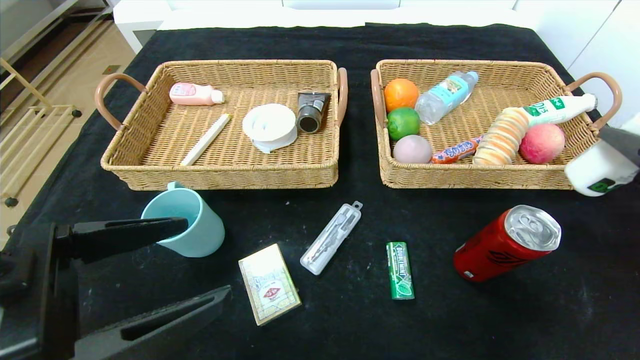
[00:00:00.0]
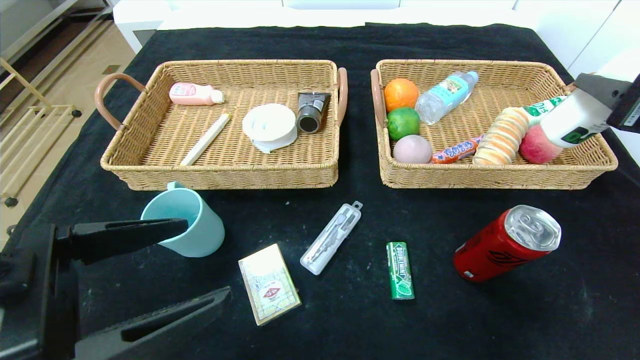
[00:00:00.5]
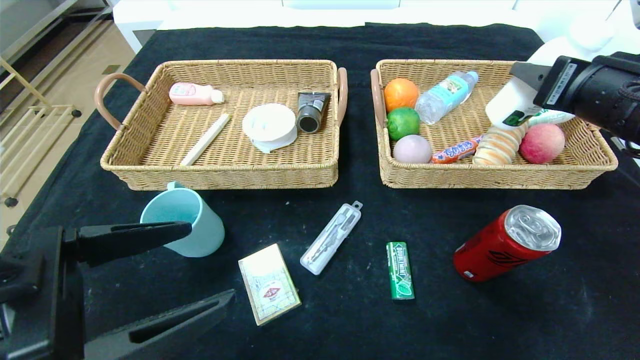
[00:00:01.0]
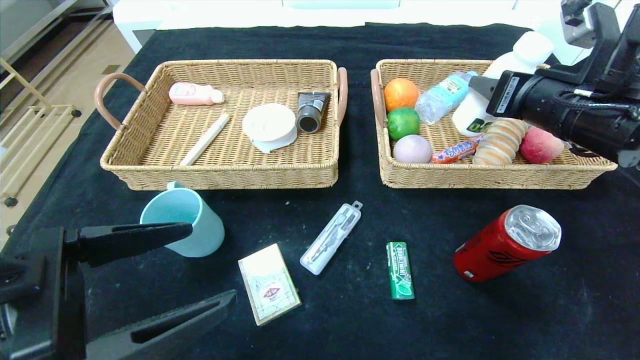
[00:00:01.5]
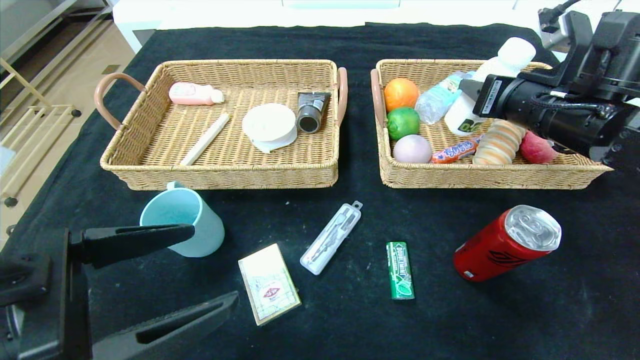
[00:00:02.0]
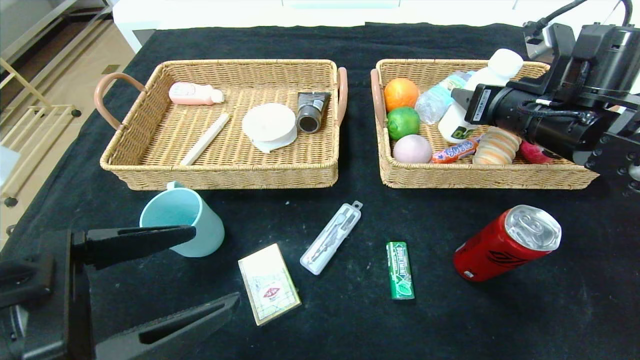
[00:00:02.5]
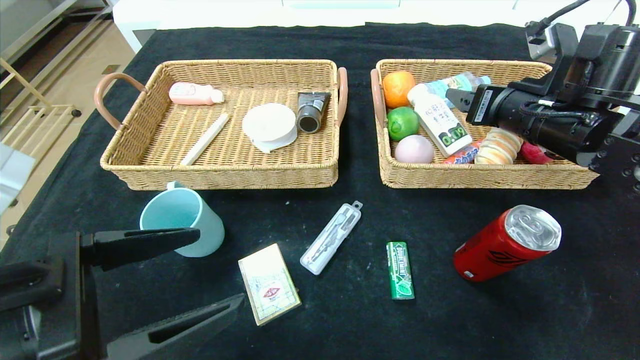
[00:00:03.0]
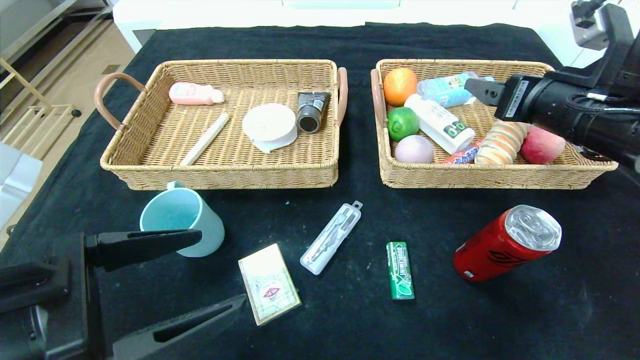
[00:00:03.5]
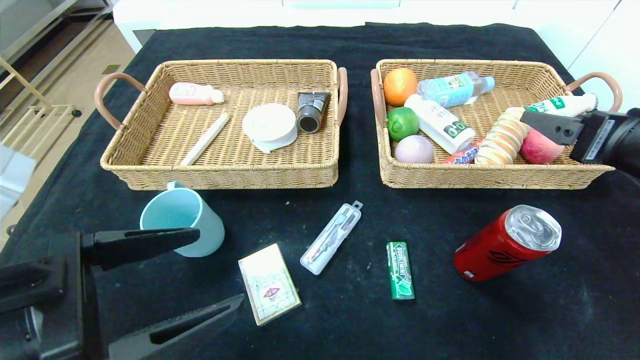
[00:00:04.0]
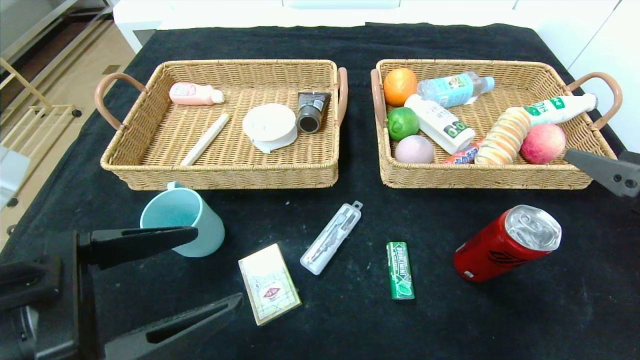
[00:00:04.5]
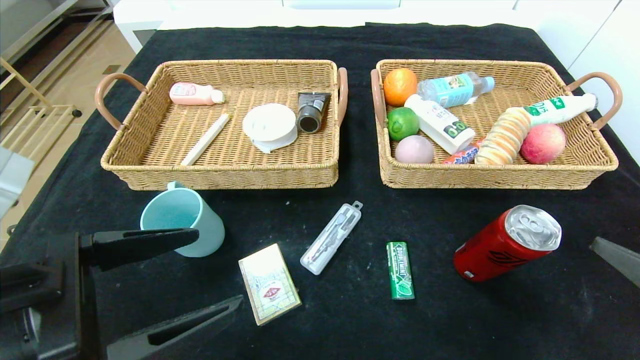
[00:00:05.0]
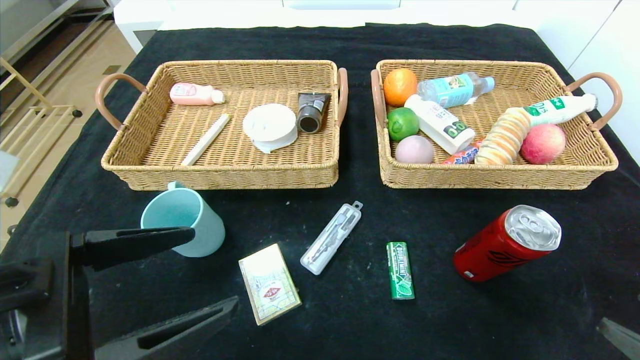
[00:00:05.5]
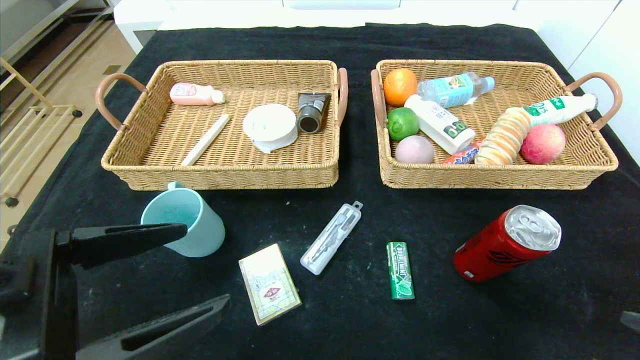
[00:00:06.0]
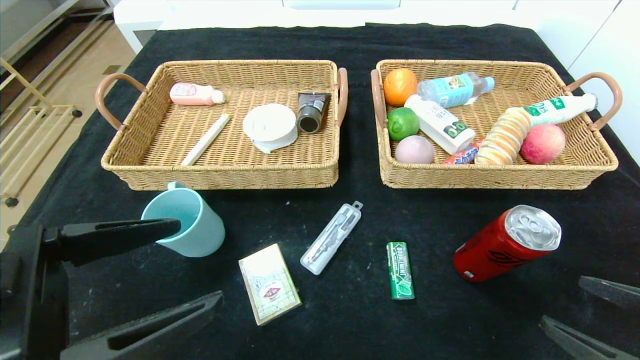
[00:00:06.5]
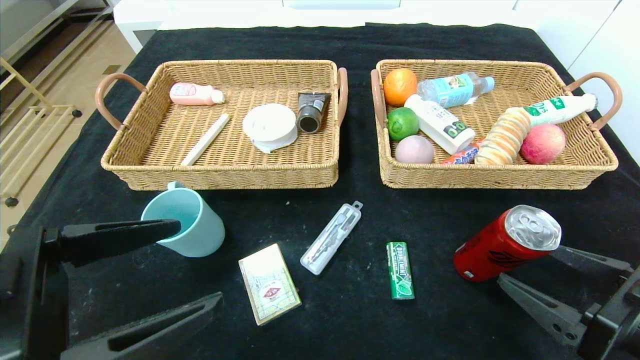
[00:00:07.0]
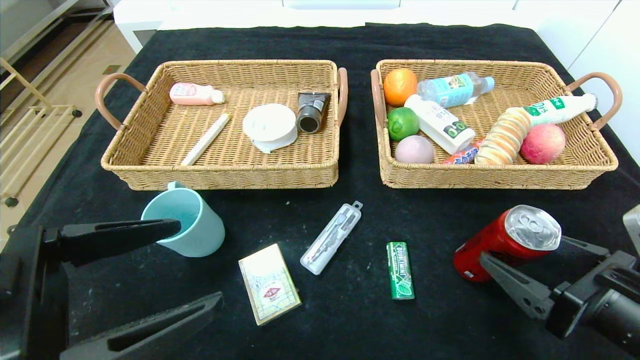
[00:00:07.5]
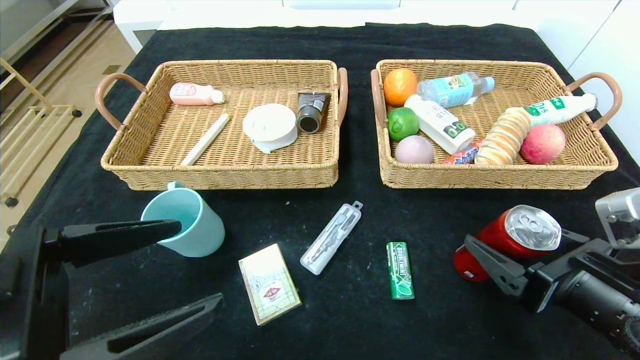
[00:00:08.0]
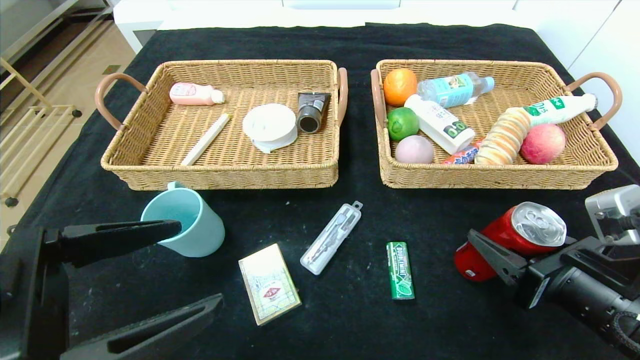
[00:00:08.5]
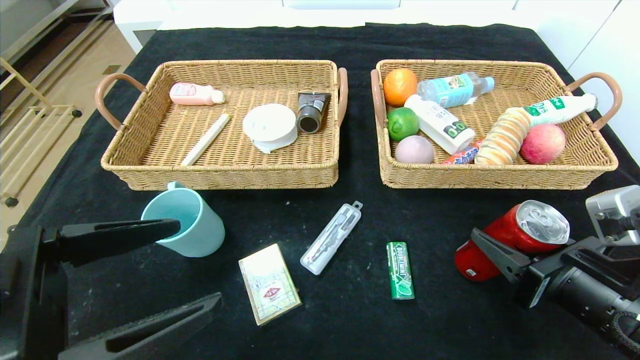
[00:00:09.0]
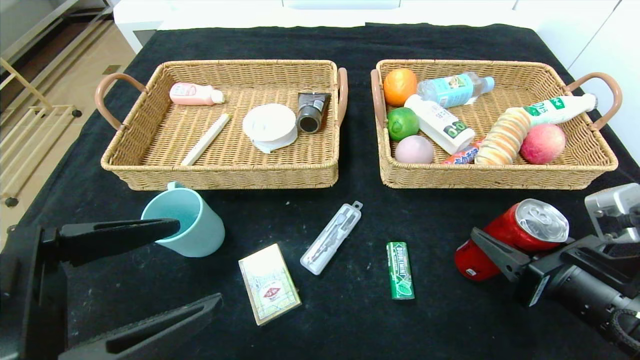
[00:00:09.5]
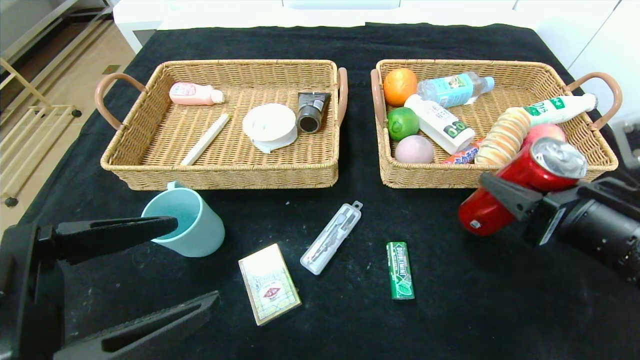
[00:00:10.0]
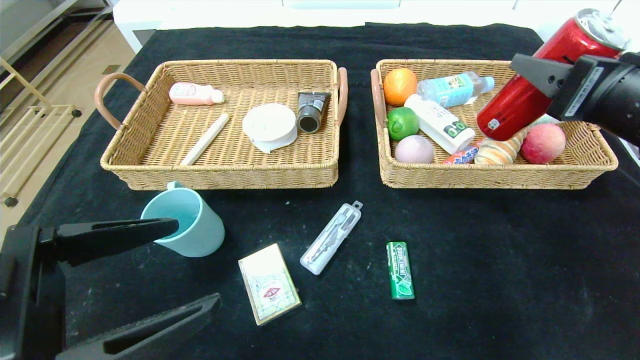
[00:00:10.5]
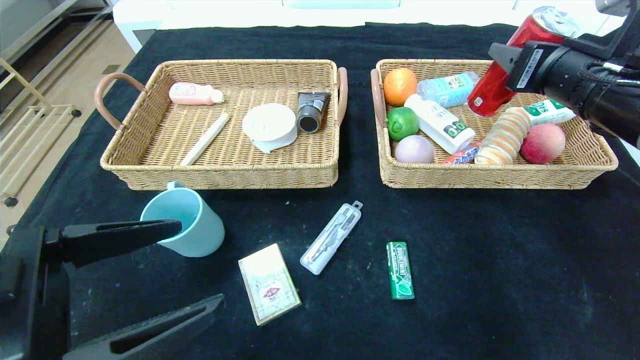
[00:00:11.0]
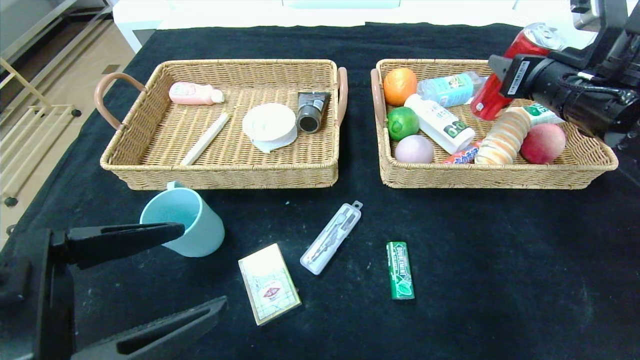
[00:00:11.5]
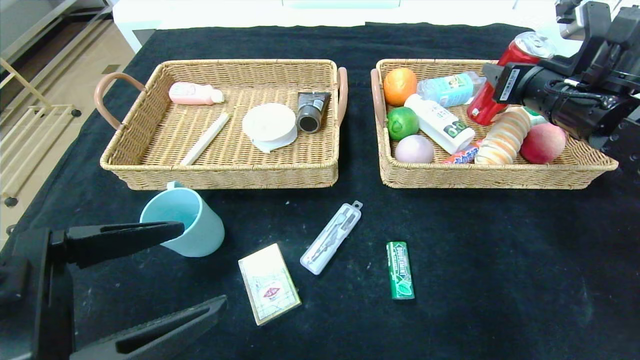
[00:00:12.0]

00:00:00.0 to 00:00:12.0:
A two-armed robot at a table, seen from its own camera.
Step, 00:00:00.0 to 00:00:04.5: Grasp the milk and put it in the right basket.
00:00:00.0 to 00:00:02.0: The right gripper heads forward and to the left, covering roughly 15 cm.
00:00:02.0 to 00:00:04.0: The right gripper is displaced backward and to the right by about 10 cm, and opens its fingers.
00:00:04.0 to 00:00:06.0: The right gripper is displaced backward and downward by about 20 cm.
00:00:06.0 to 00:00:08.0: The right gripper goes approximately 15 cm forward and to the left.
00:00:08.0 to 00:00:10.0: The right gripper is displaced upward by about 5 cm, and closes.
00:00:10.0 to 00:00:12.0: The right gripper shifts approximately 20 cm forward and upward.

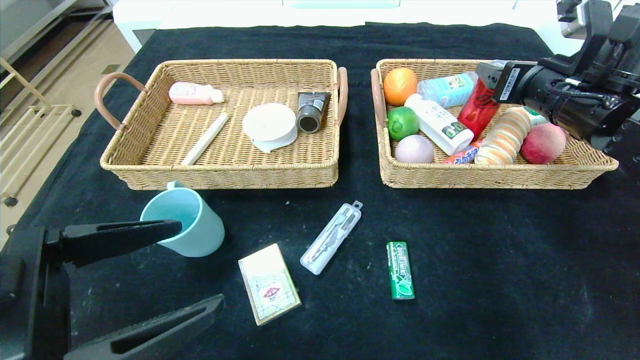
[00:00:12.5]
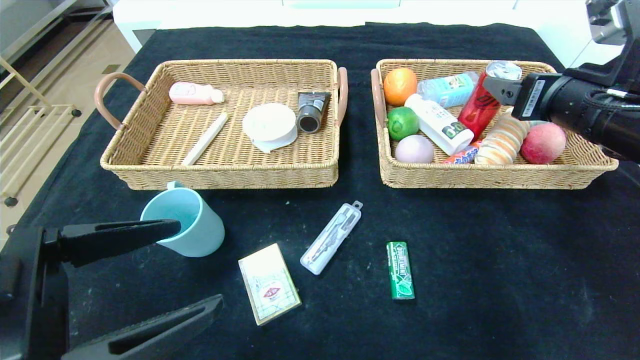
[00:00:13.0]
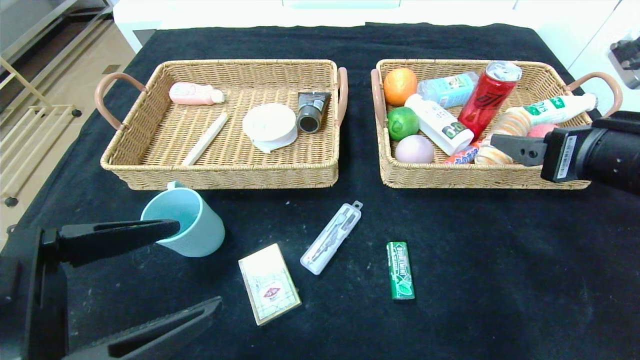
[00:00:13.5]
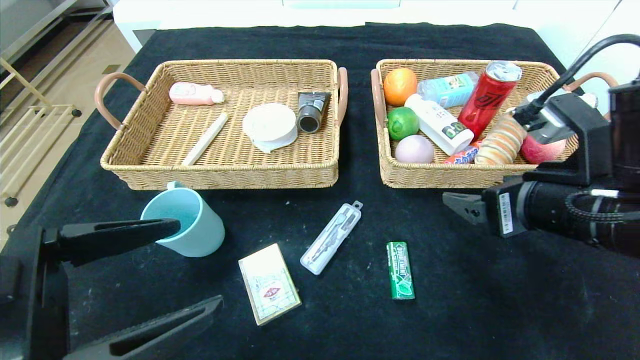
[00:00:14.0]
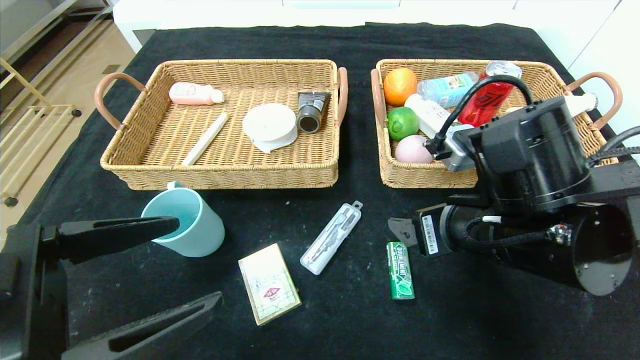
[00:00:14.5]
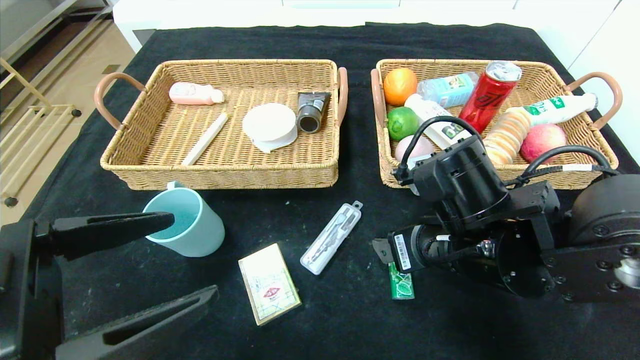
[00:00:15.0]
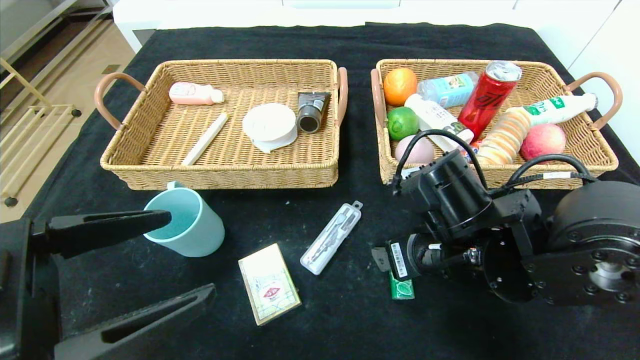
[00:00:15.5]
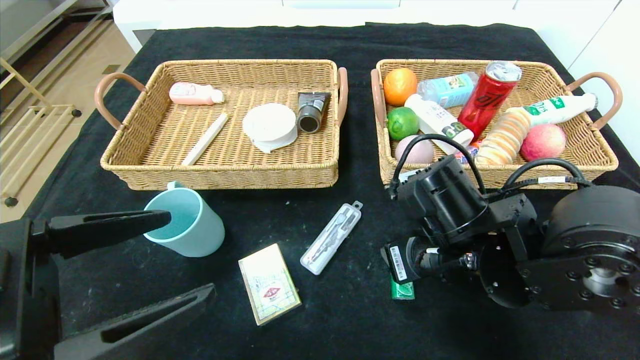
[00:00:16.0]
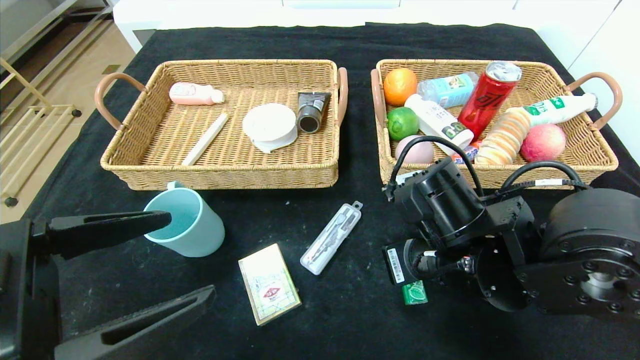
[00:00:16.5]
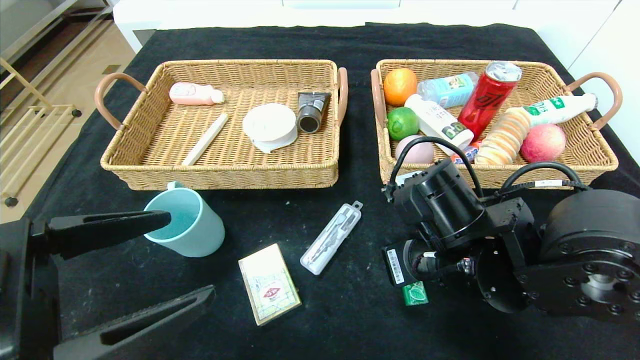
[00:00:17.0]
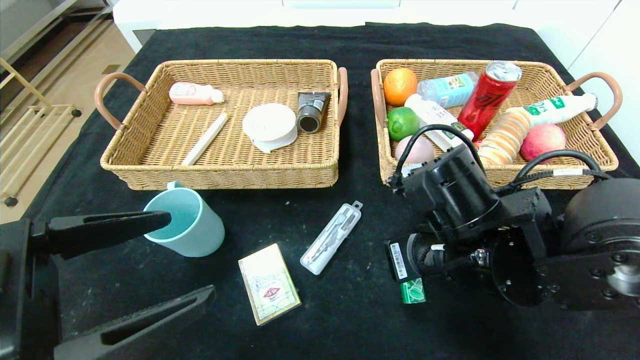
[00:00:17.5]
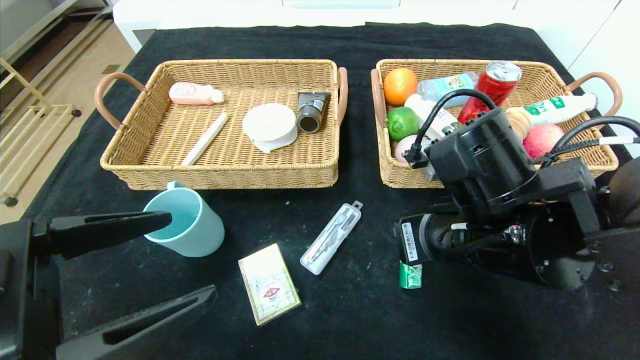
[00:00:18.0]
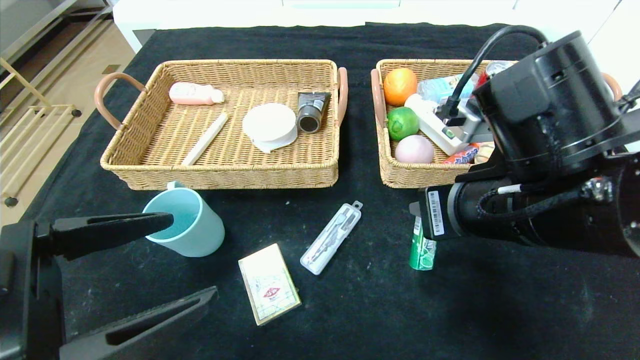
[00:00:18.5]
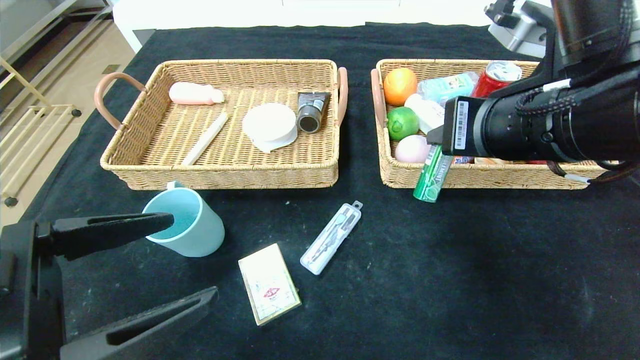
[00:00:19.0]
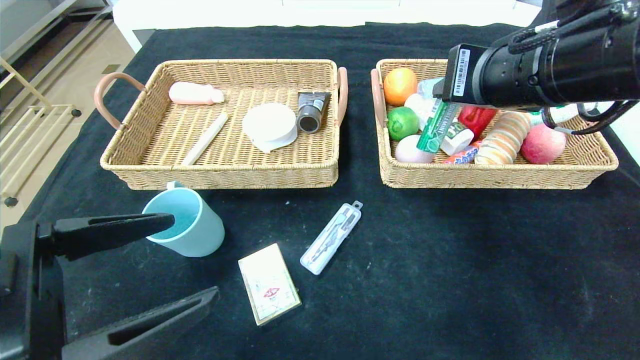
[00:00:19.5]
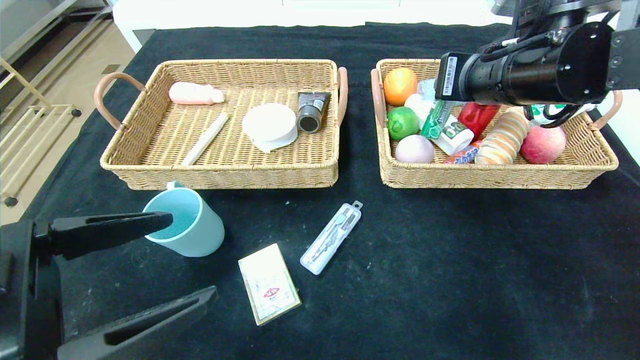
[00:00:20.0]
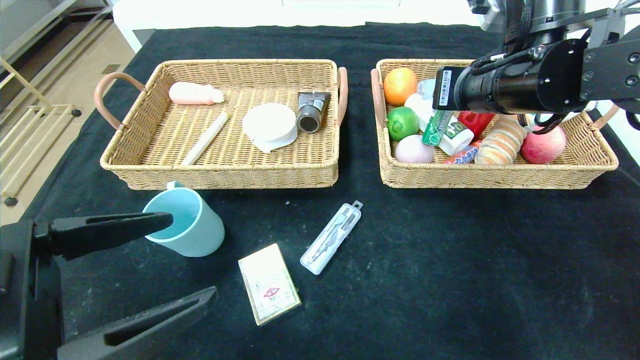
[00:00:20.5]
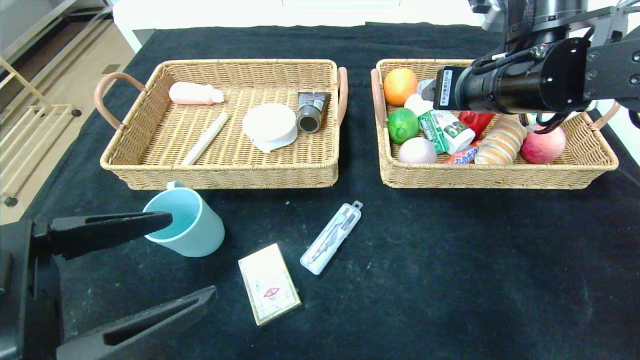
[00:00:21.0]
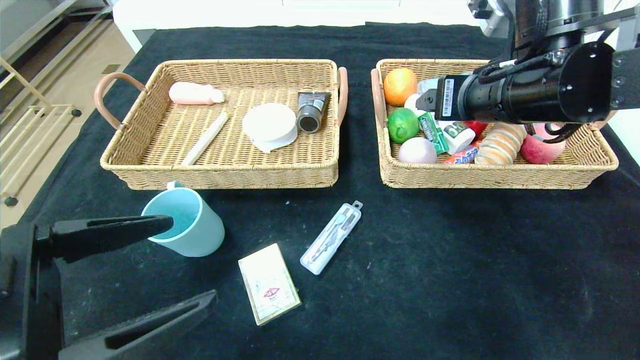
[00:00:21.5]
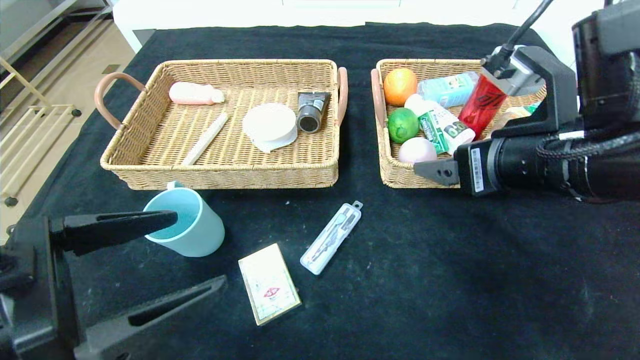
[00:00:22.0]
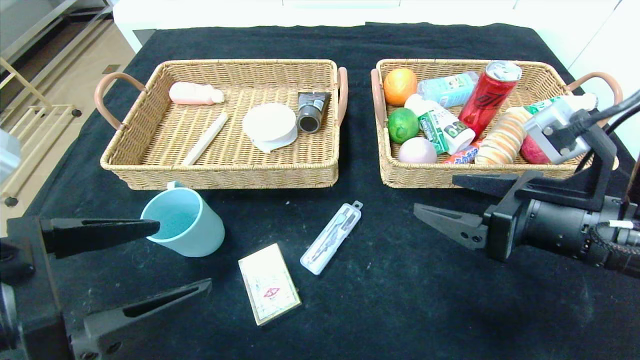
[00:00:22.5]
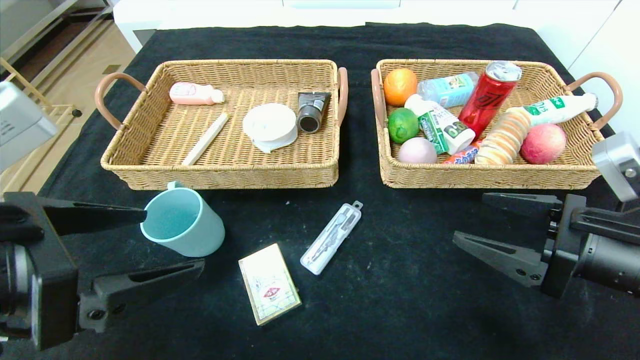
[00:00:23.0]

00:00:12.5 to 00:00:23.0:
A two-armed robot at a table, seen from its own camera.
Step, 00:00:13.0 to 00:00:21.0: Grasp the green chewing gum and put it in the right basket.
00:00:12.5 to 00:00:14.5: The right gripper goes roughly 20 cm to the left, backward and downward.
00:00:14.5 to 00:00:16.5: The right gripper changes place by some 5 cm, and closes up.
00:00:16.5 to 00:00:19.0: The right gripper heads upward, covering some 15 cm.
00:00:19.0 to 00:00:21.0: The right gripper heads forward, covering roughly 10 cm, and opens up.
00:00:21.0 to 00:00:23.0: The right gripper moves backward, downward and to the right, about 20 cm.
